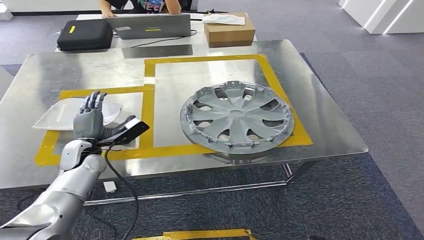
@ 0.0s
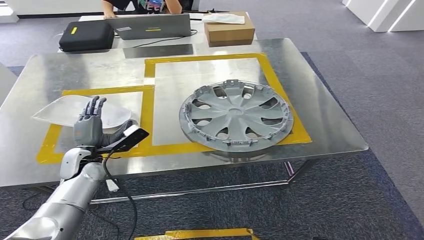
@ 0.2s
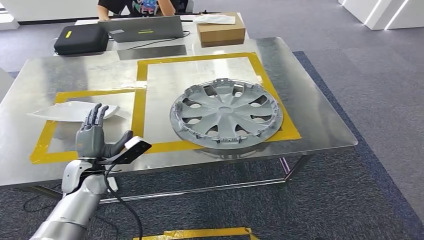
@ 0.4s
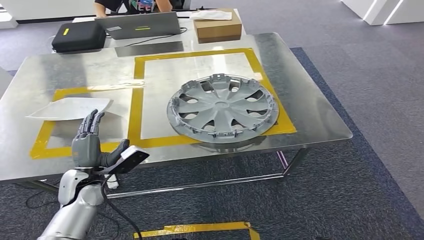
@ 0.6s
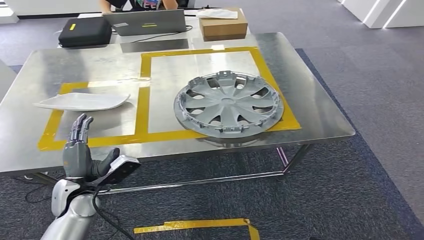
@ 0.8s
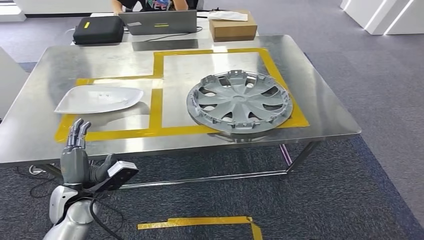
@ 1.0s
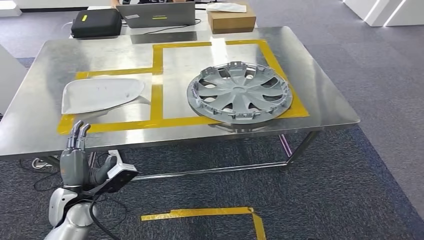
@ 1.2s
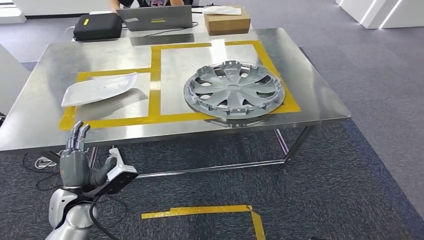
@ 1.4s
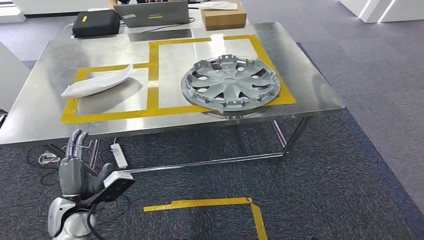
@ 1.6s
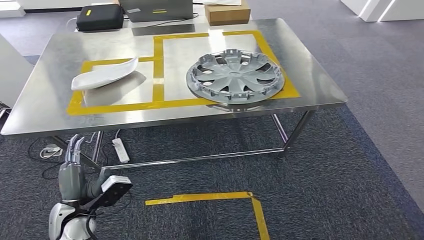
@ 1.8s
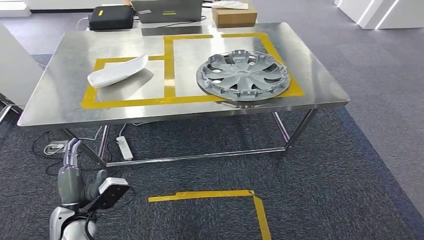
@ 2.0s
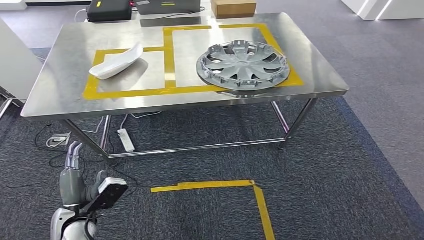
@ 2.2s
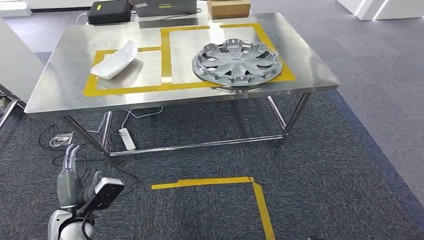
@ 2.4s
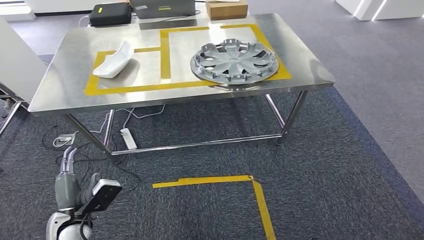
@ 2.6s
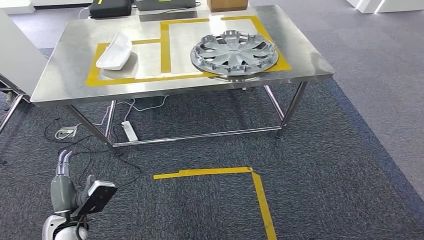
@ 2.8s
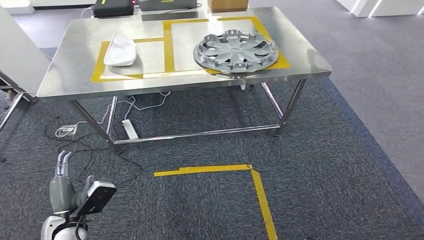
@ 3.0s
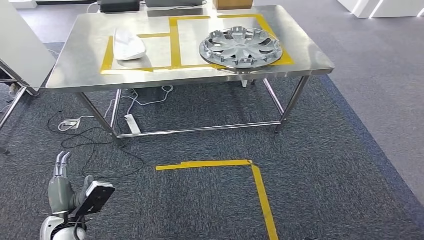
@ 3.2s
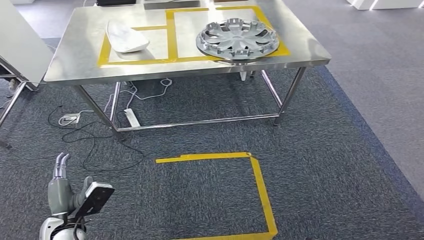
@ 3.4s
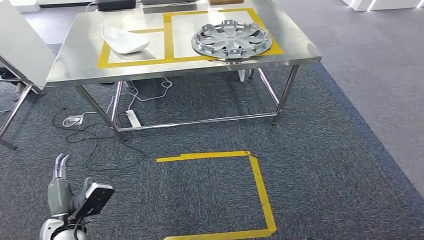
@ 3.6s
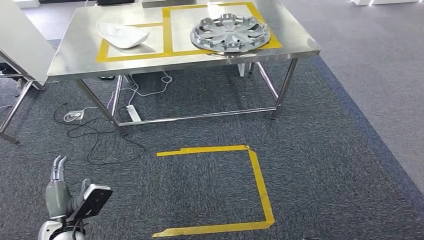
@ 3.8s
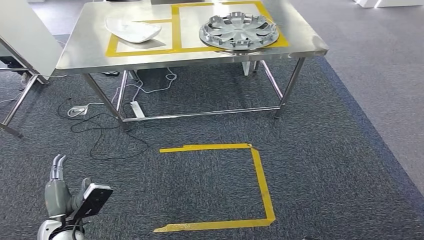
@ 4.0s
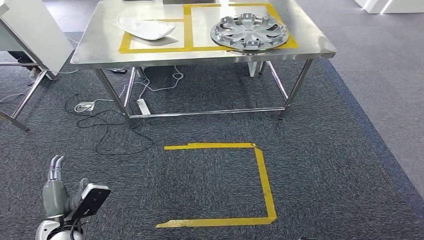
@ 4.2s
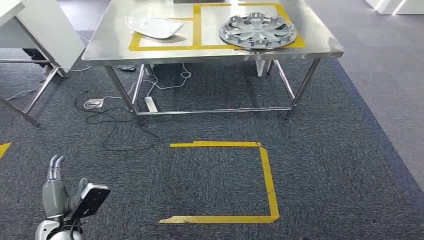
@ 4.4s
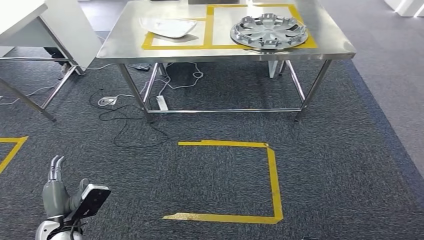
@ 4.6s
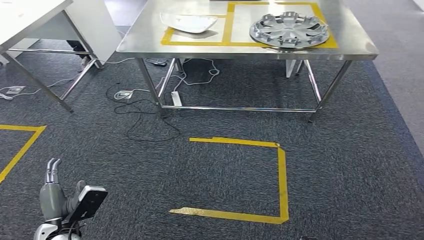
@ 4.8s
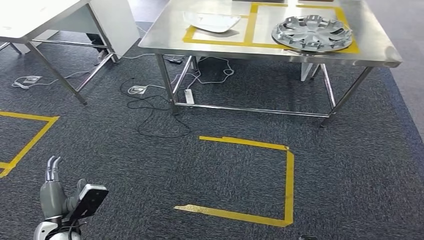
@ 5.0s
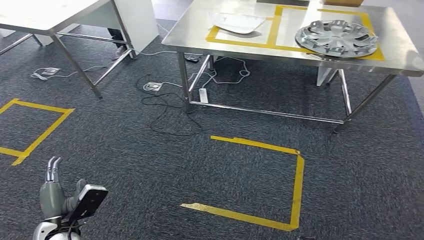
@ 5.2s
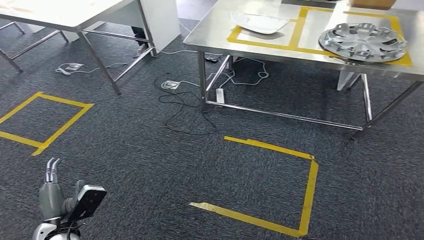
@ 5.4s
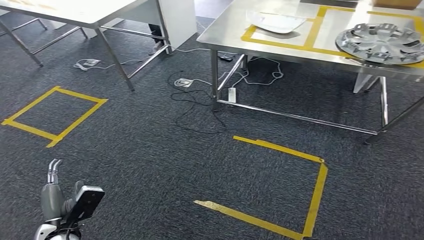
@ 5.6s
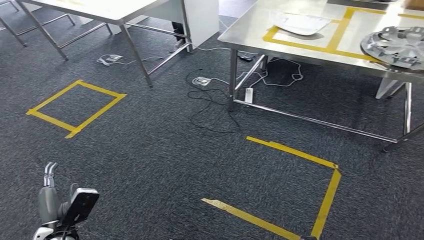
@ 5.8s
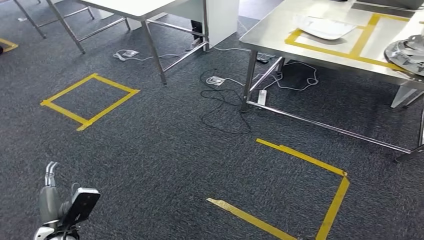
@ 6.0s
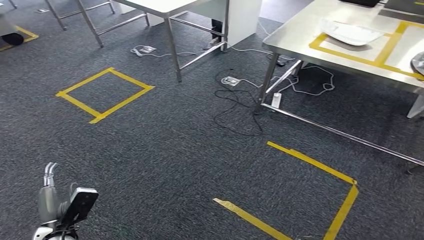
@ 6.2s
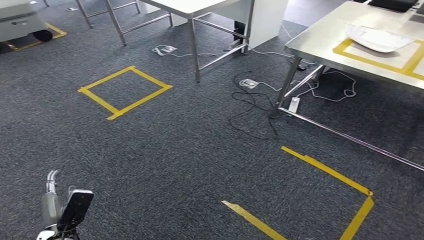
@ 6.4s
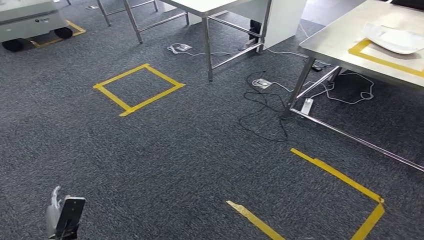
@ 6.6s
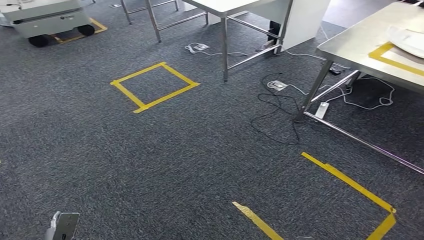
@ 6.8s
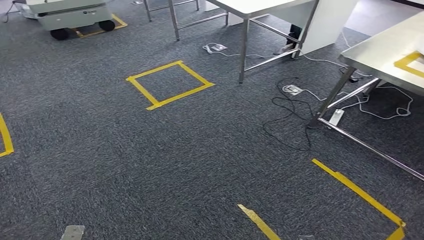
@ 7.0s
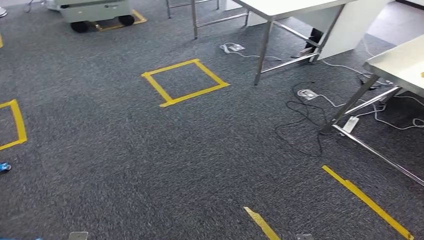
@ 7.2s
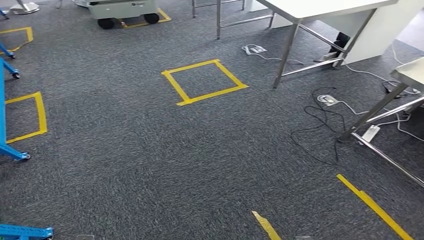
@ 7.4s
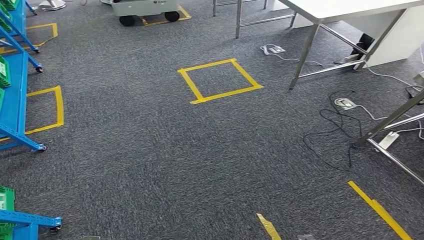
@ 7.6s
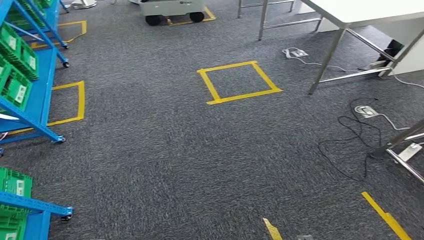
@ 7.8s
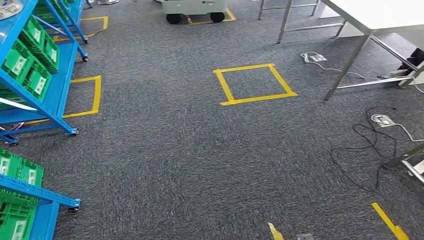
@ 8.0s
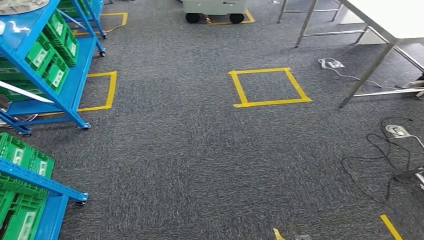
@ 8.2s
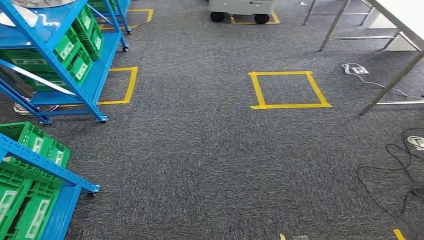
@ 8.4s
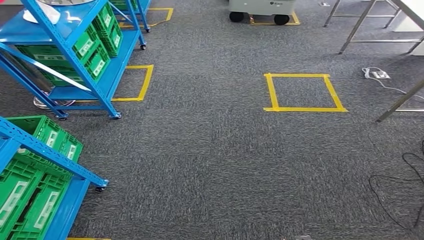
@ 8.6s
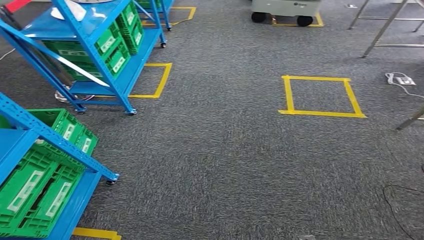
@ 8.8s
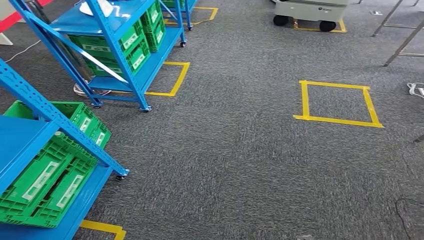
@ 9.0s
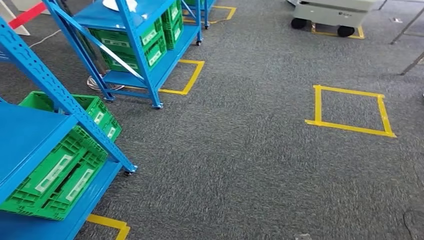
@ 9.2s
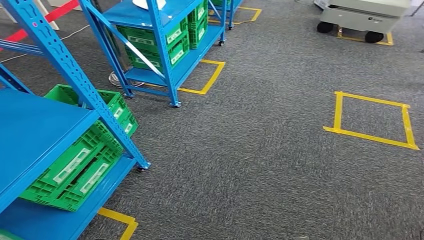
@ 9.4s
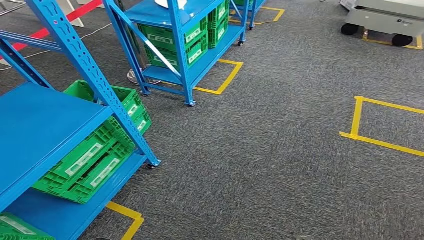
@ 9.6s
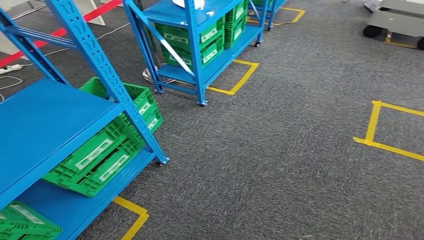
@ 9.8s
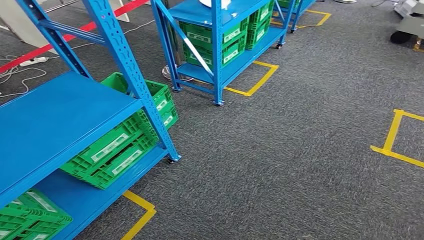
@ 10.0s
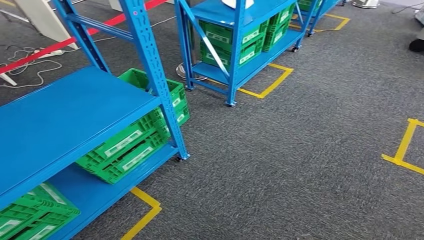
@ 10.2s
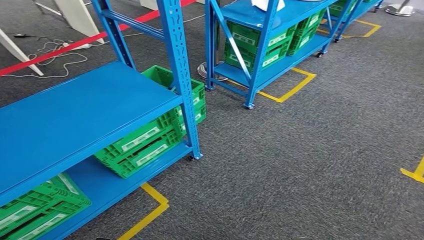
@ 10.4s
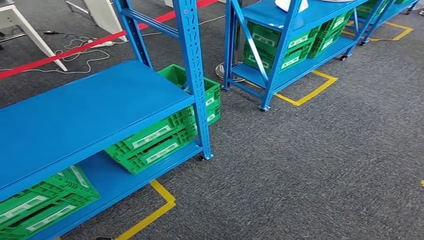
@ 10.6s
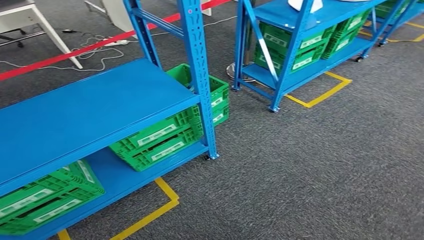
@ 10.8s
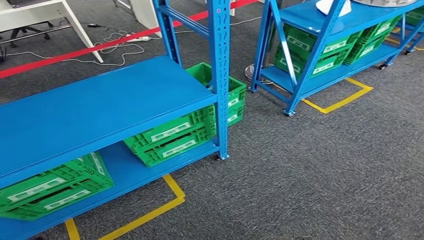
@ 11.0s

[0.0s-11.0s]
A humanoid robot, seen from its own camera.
Step, 0.0s to 2.0s: Insert the small parts into the corresponding holes on the workbench.

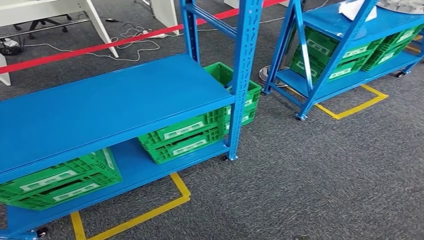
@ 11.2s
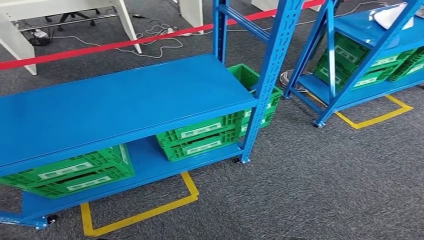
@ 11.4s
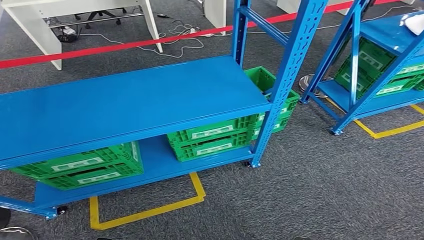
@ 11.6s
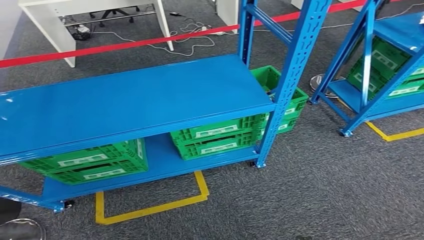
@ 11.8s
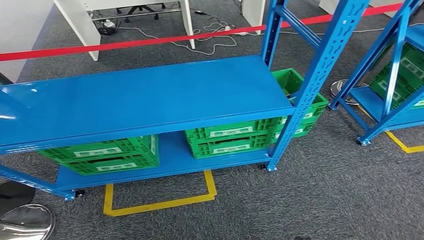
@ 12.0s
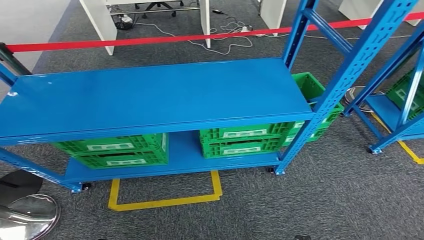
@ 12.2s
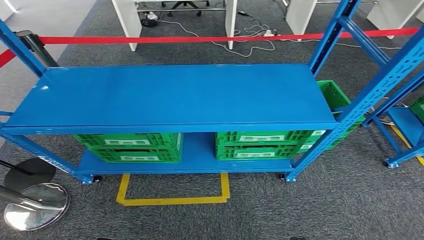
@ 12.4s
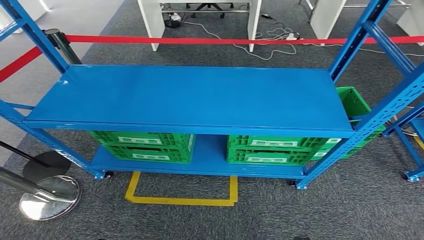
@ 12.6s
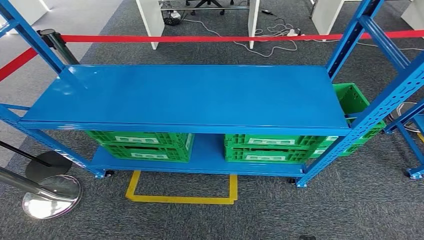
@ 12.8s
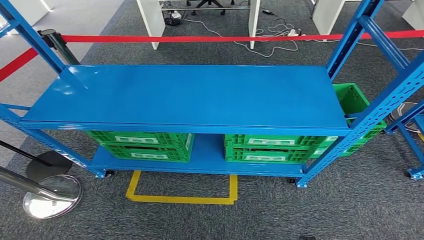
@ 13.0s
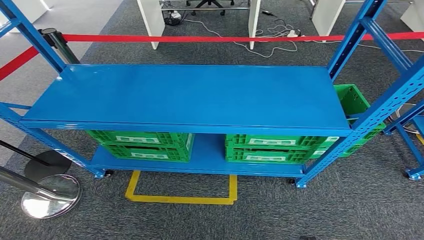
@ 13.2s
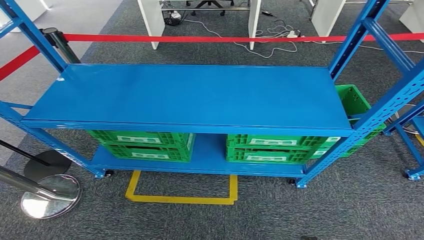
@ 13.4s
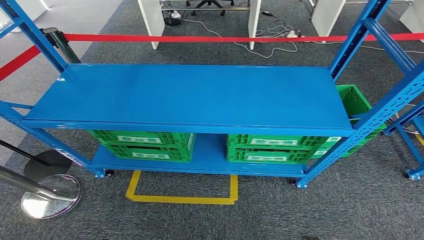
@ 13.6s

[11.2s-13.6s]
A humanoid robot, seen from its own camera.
Step, 11.2s to 13.6s: Move to the initial position of the workbench.

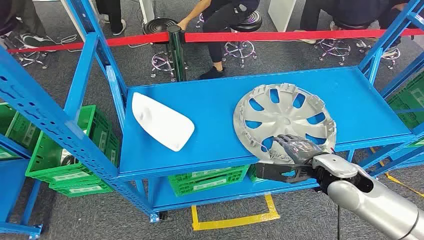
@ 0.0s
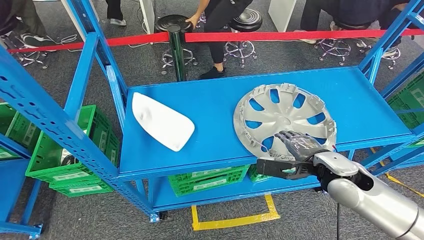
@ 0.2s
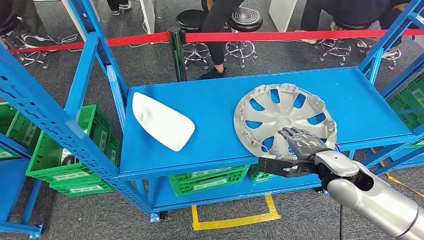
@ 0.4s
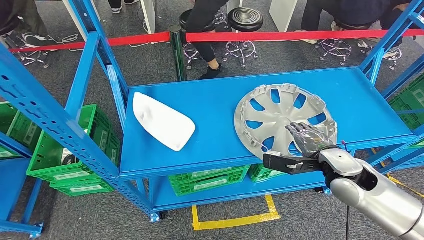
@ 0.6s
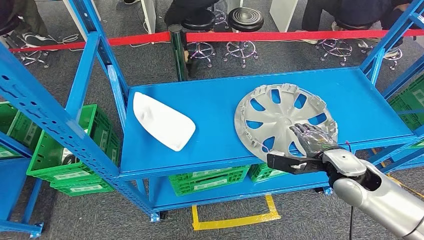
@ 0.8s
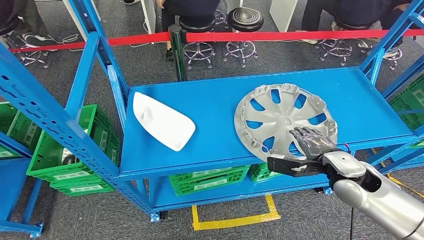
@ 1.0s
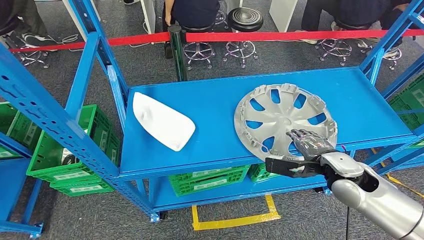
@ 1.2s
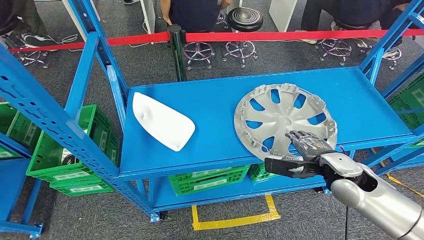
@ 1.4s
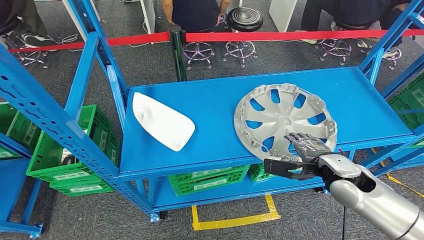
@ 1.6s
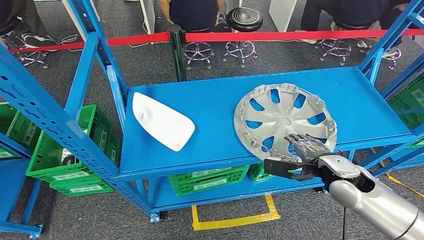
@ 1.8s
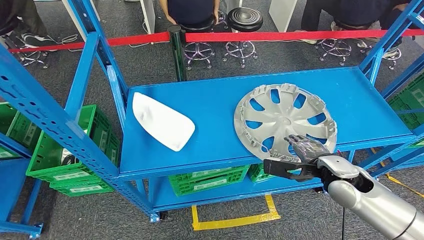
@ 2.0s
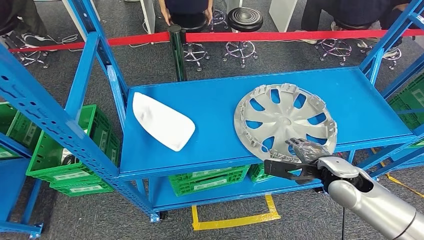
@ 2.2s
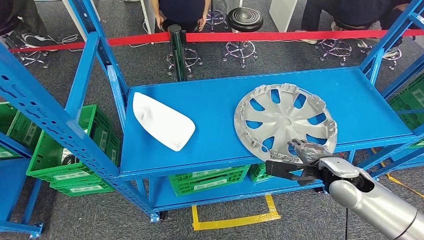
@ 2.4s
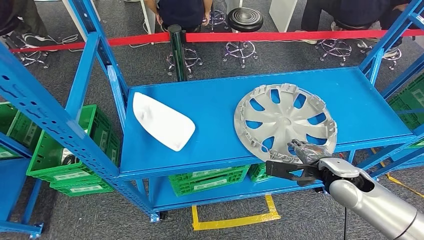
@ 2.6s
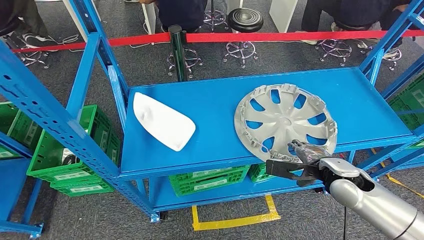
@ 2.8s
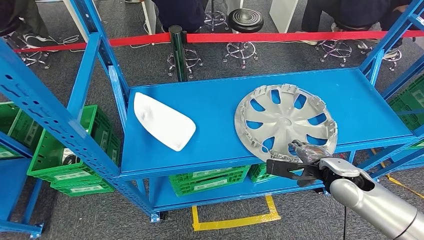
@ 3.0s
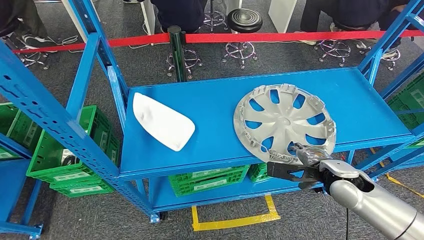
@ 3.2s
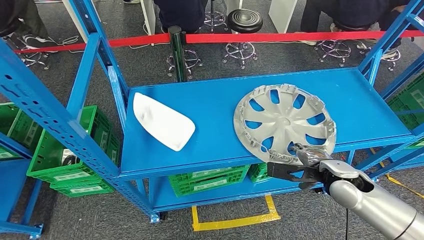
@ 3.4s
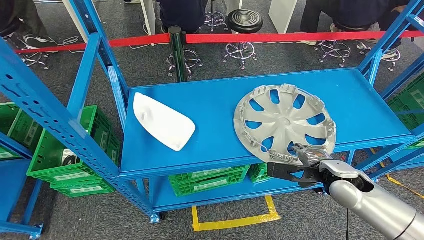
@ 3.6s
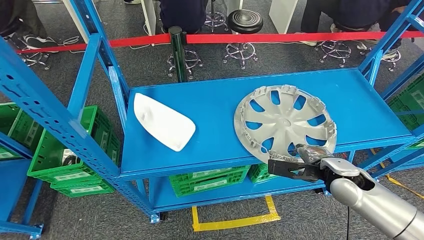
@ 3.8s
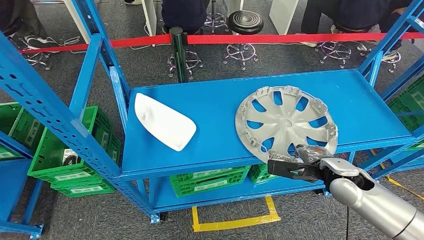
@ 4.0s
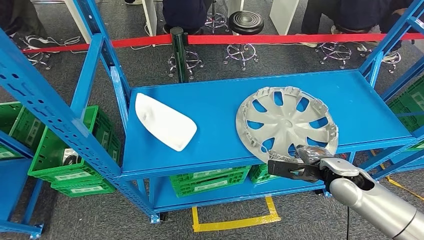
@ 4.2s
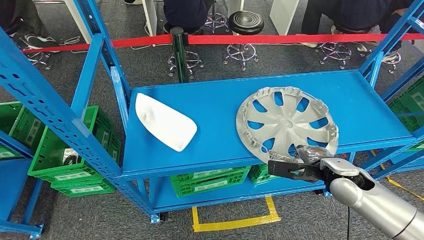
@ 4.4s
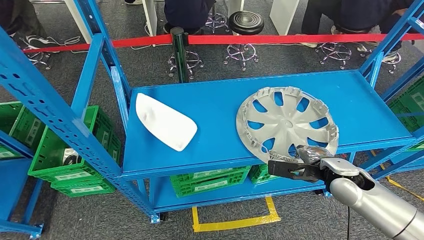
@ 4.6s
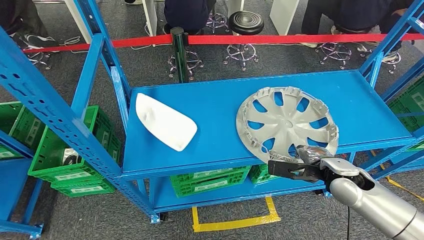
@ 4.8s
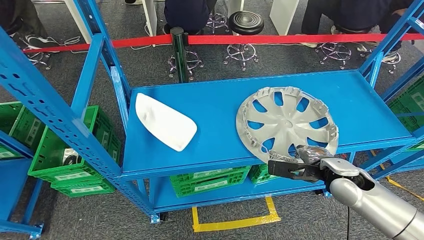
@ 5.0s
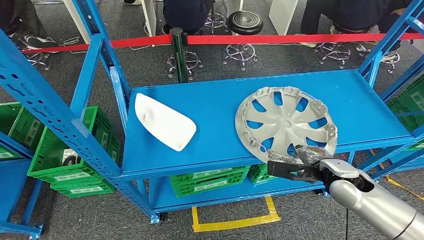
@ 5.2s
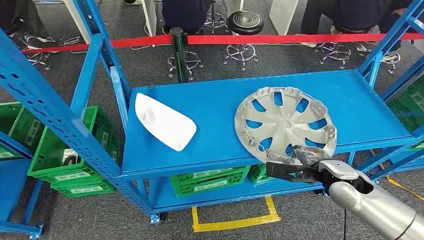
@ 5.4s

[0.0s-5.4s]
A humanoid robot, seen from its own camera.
1.4s to 2.8s: The hands stay close to where they were, moving slightly.
2.8s to 4.0s: Both hands stay about where they are.
4.0s to 5.4s: The hands make only small movements.
